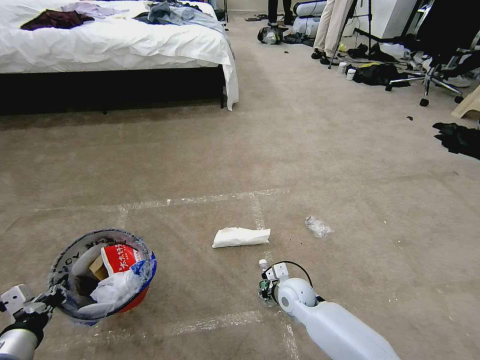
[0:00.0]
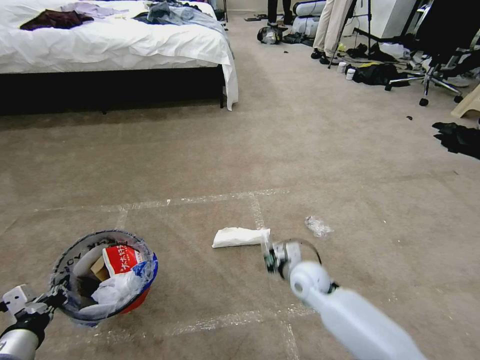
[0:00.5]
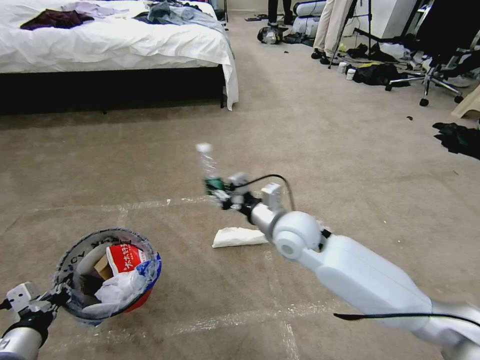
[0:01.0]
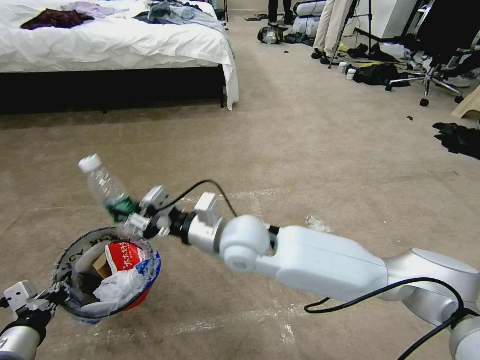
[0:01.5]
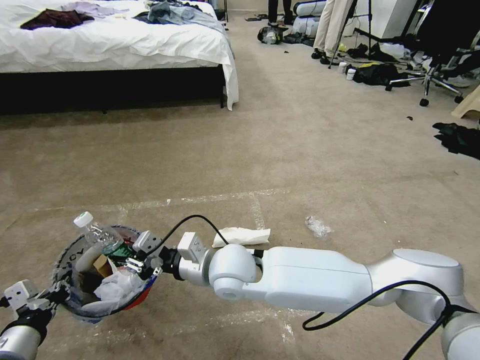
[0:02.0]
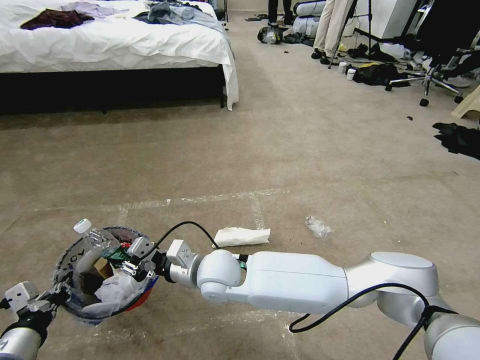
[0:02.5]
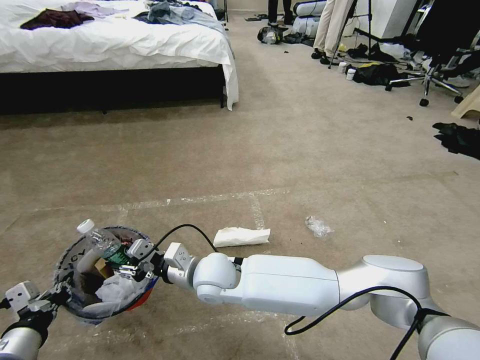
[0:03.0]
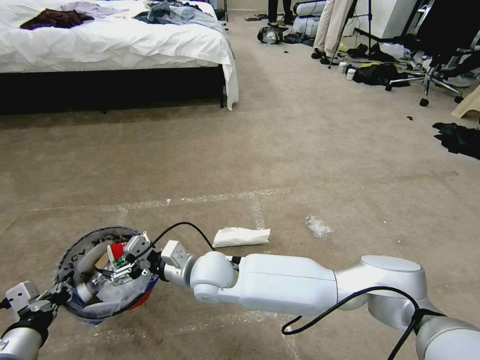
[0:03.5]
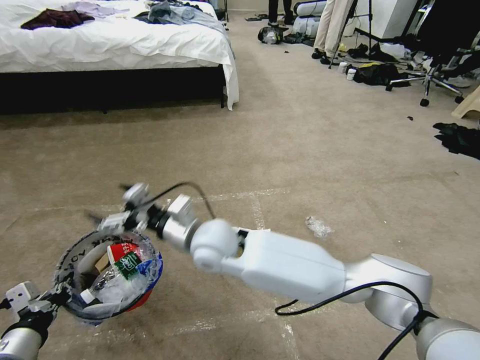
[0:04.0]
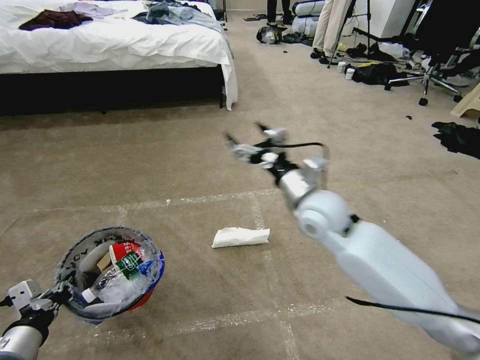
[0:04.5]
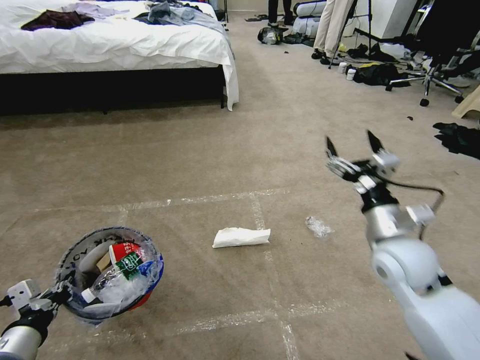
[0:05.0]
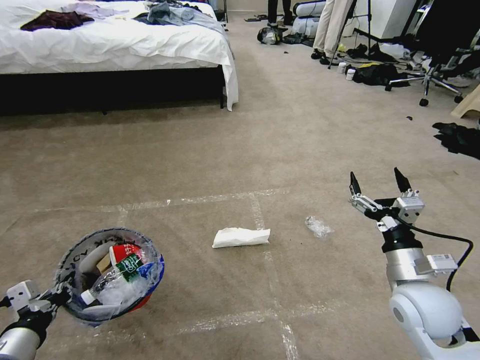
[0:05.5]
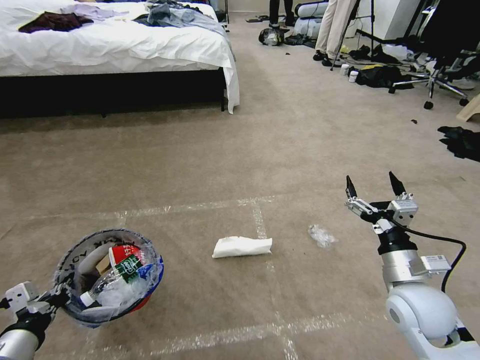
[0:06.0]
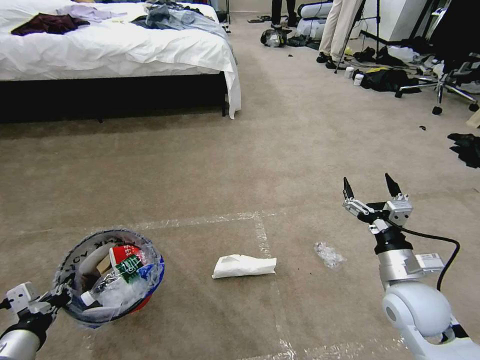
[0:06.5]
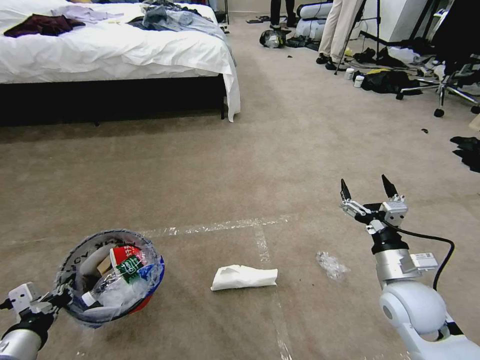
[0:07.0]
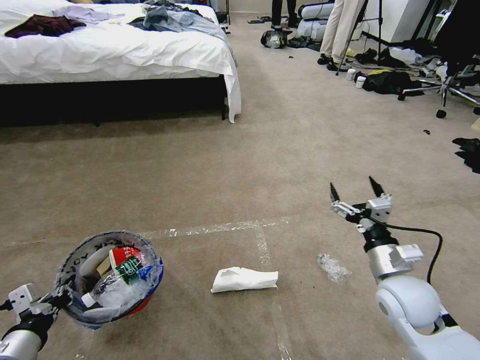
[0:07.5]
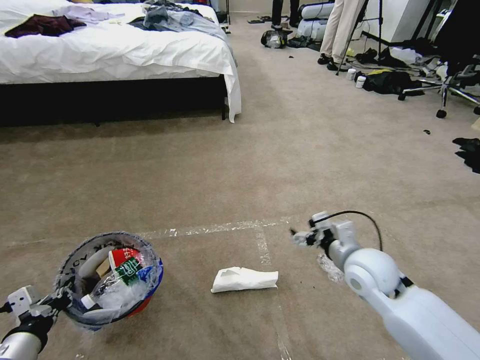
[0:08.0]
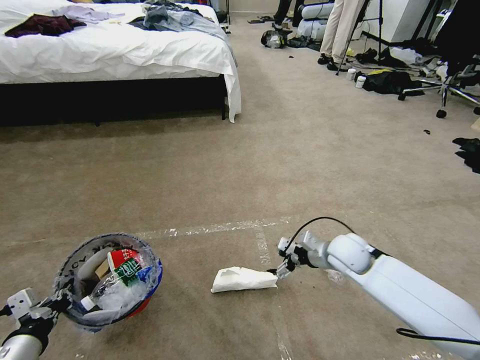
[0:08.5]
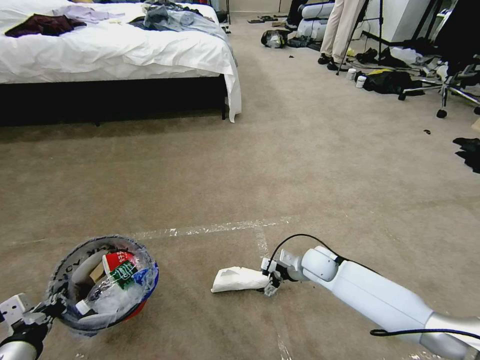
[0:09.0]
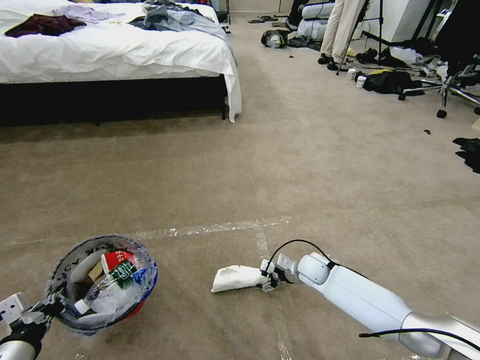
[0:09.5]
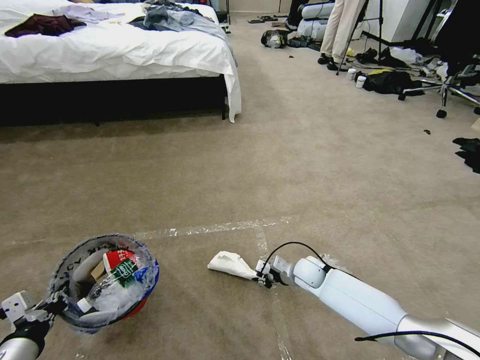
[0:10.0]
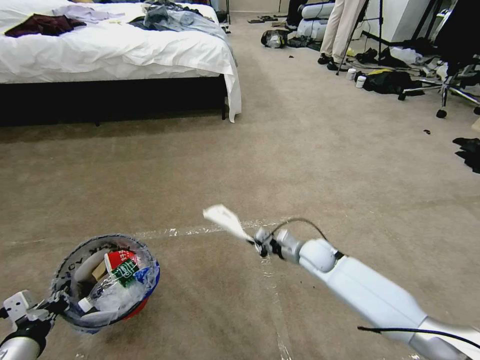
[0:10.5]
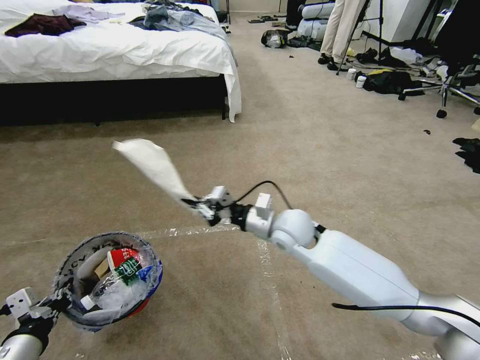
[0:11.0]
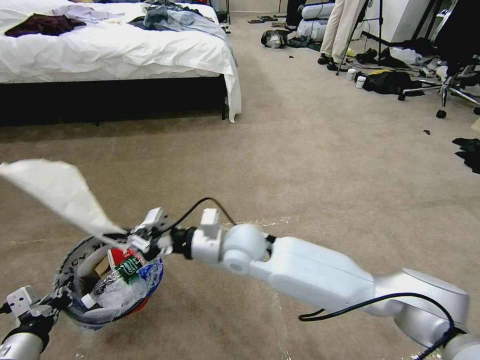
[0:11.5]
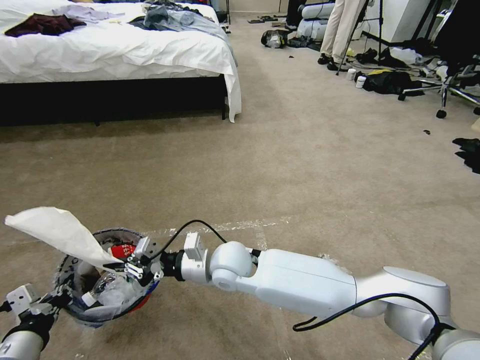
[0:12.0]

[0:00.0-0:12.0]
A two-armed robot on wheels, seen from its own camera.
Task of the whole recording: Pick up the trash bin and place the garbage on the floor into it.
0:00.0 to 0:02.0: The right gripper moves upward and to the left, approximately 25 cm.
0:02.0 to 0:04.0: The right gripper moves some 5 cm, and opens up.
0:04.0 to 0:06.0: The right gripper moves to the right, roughly 40 cm.
0:06.0 to 0:08.0: The right gripper goes some 10 cm forward and to the left.
0:08.0 to 0:10.0: The right gripper goes about 25 cm downward and forward, and closes up.
0:10.0 to 0:12.0: The right gripper travels to the left and upward by about 30 cm.

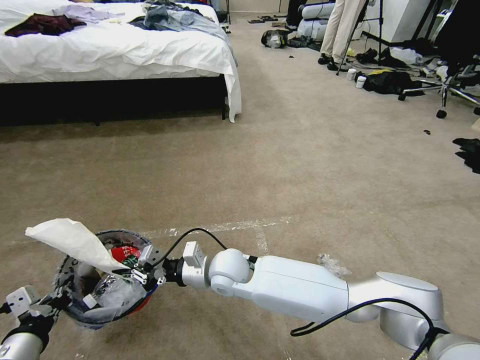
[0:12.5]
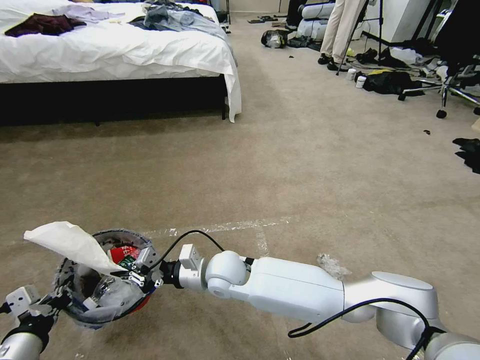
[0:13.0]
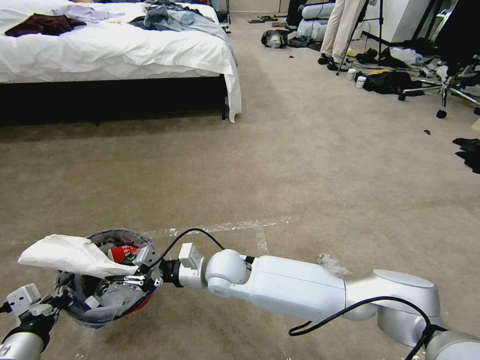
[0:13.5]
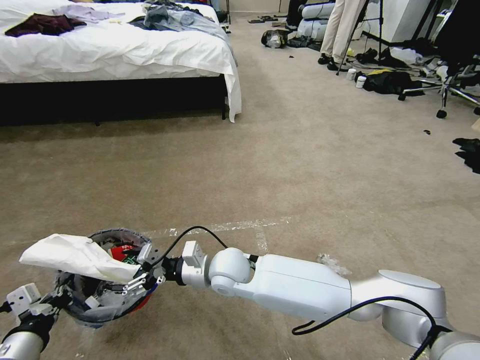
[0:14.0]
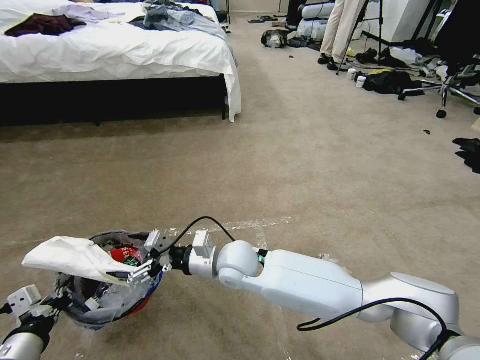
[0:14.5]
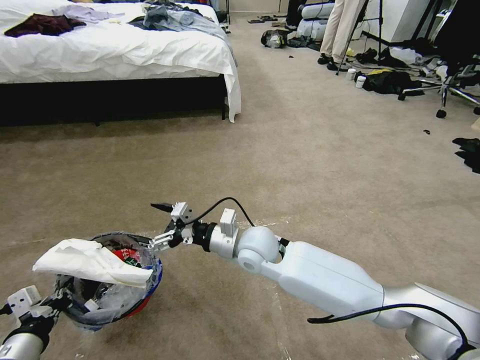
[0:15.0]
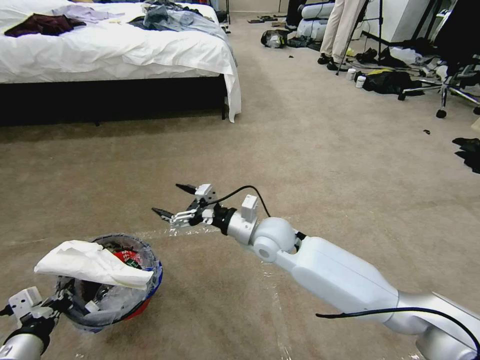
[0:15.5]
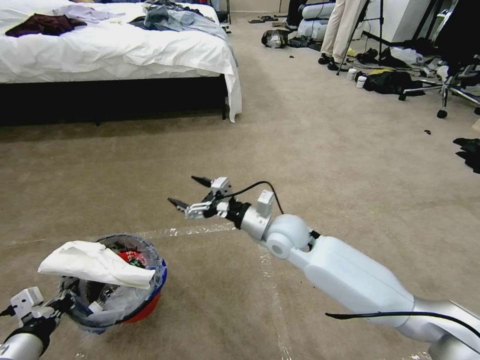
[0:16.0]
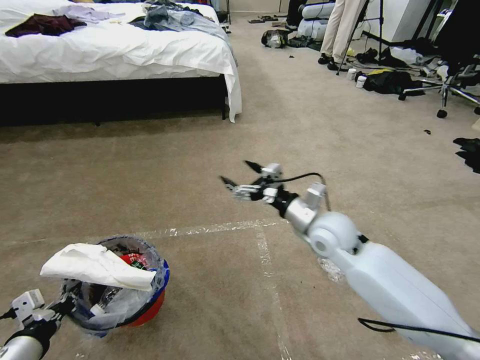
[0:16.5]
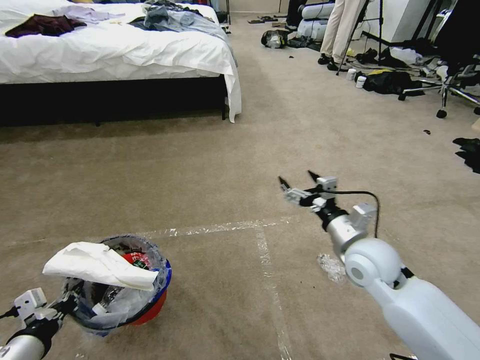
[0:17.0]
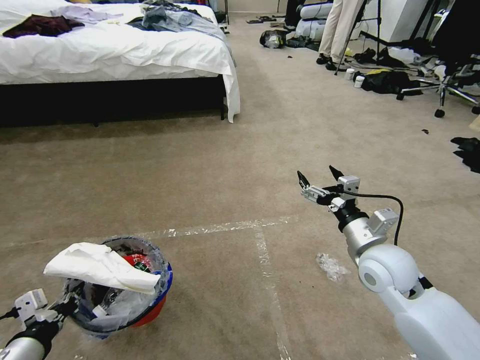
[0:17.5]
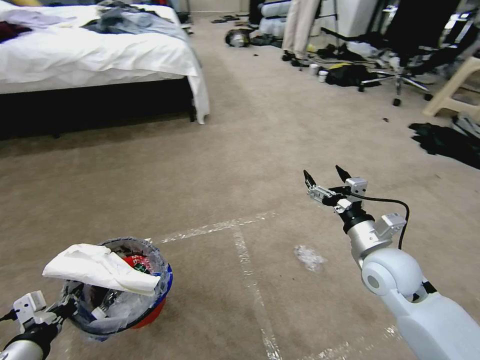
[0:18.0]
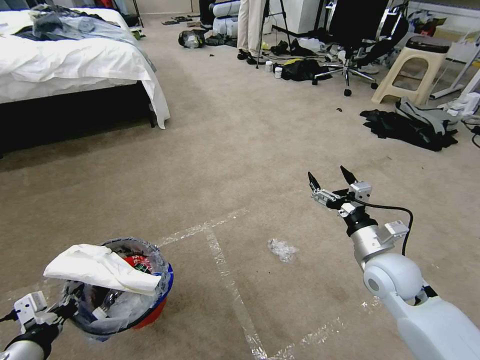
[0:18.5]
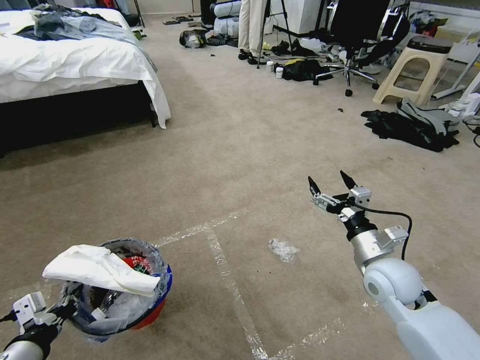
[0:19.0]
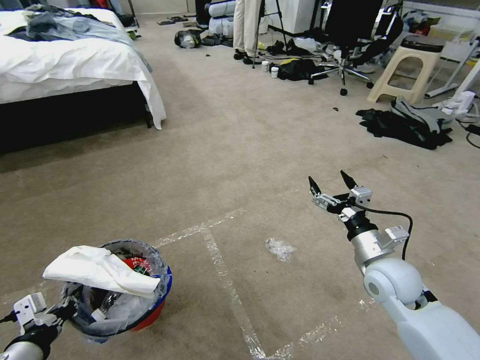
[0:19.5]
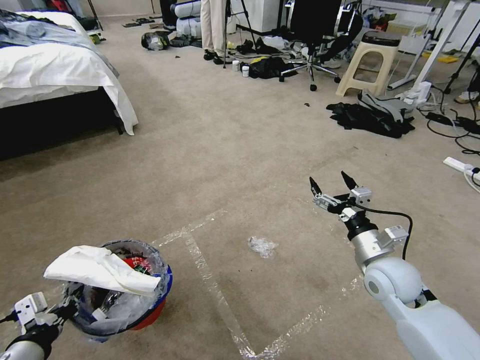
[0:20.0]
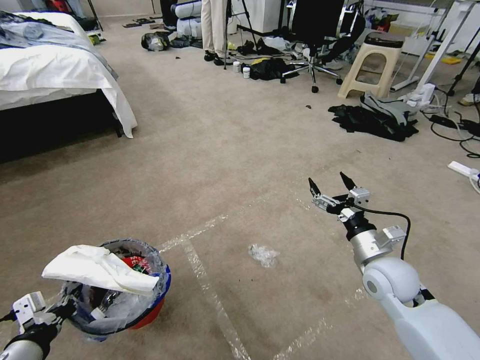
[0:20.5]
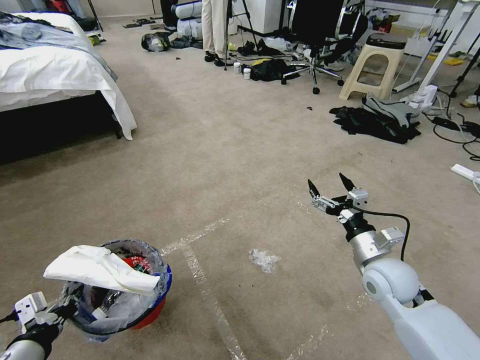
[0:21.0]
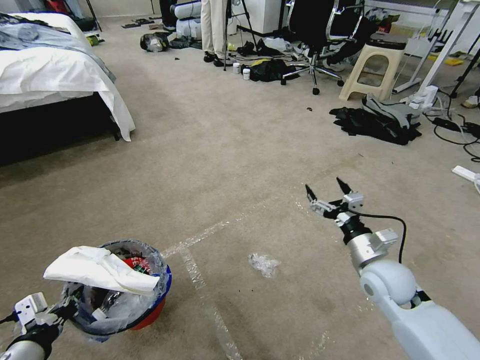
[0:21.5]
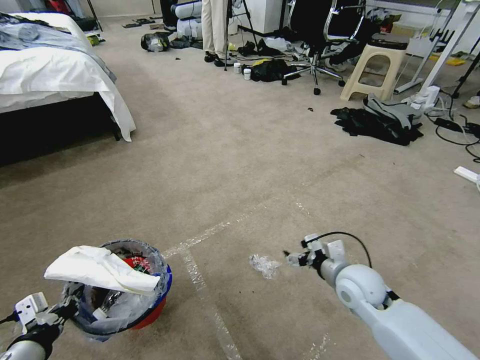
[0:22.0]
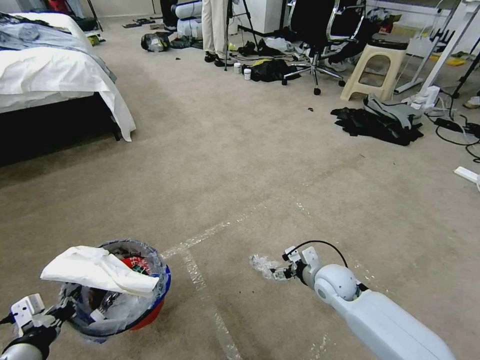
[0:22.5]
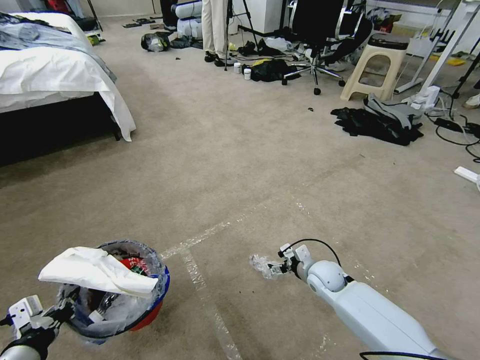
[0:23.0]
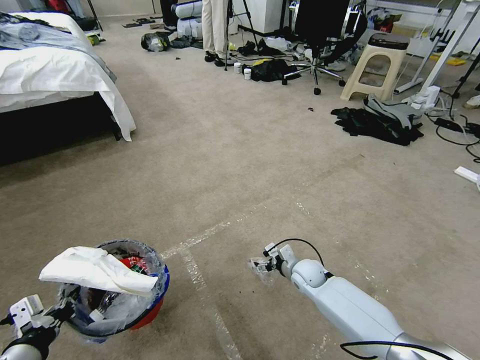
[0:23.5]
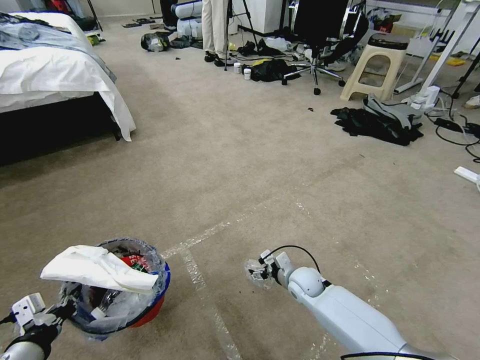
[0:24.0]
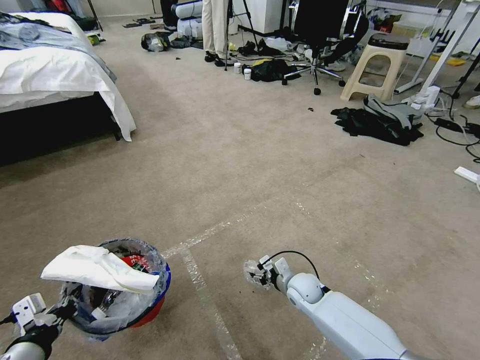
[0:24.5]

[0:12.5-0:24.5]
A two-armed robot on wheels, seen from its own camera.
Task of the whole recording: Pick up the trash bin and place the garbage on the floor into it.
0:12.5 to 0:14.5: The right gripper opens its fingers.
0:14.5 to 0:16.5: The right gripper shifts about 20 cm to the right.
0:16.5 to 0:18.5: The right gripper heads to the right and backward, covering about 15 cm.
0:20.5 to 0:22.5: The right gripper is displaced downward and to the left by roughly 15 cm.
0:22.5 to 0:24.5: The right gripper travels downward and to the left by roughly 10 cm.

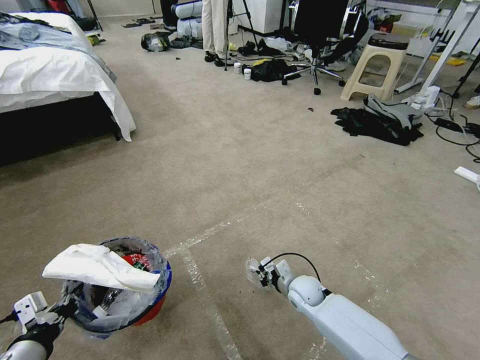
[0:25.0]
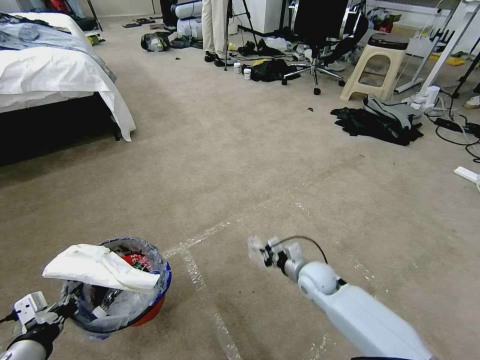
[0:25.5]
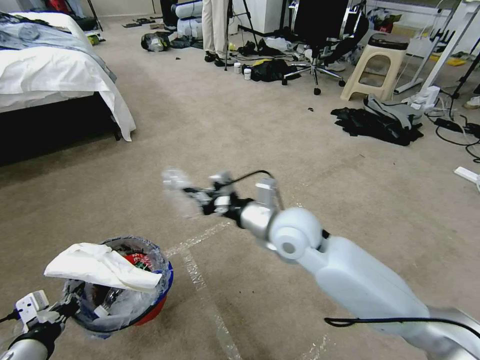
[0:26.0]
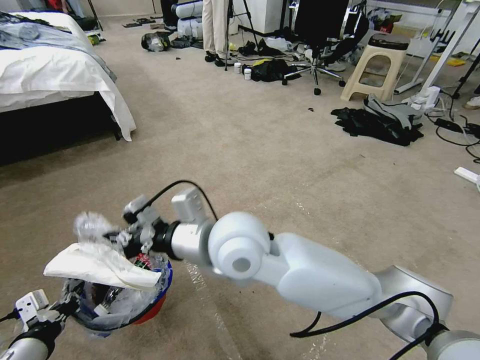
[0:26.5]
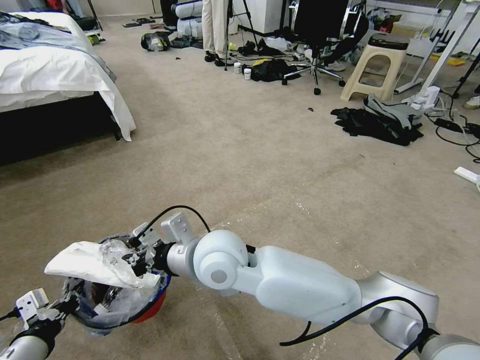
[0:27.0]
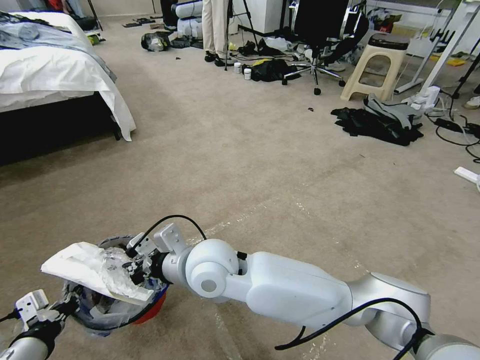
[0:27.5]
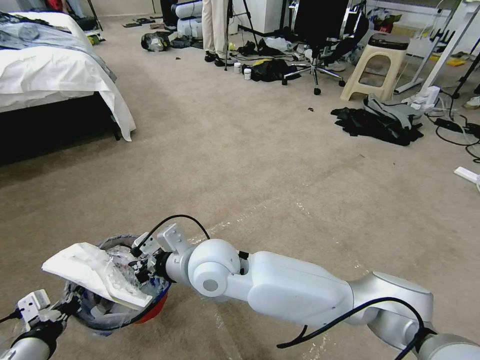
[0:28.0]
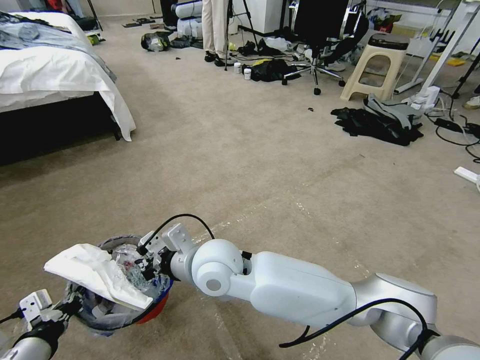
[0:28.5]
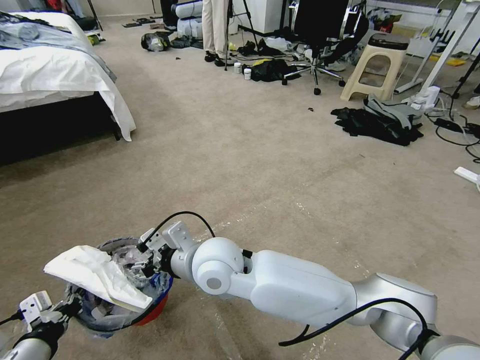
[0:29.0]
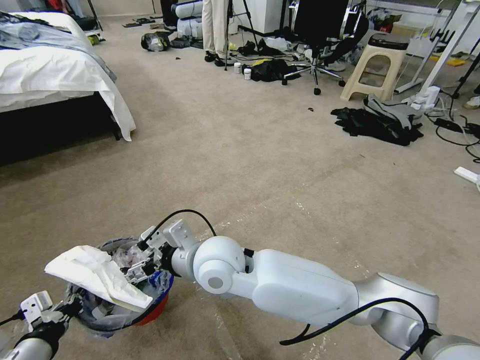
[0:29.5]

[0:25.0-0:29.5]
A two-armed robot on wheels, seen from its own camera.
Task of the whole recording: Pick up the trash bin and place the garbage on the floor into it.
0:25.0 to 0:27.0: The right gripper goes about 40 cm upward and to the left.
0:27.0 to 0:29.5: The right gripper opens.
